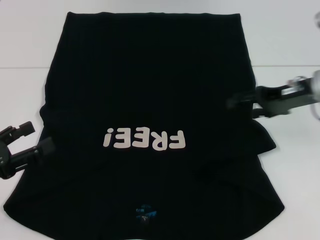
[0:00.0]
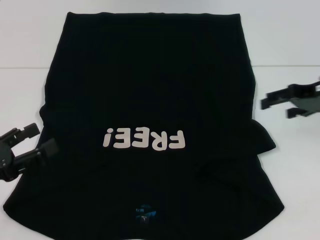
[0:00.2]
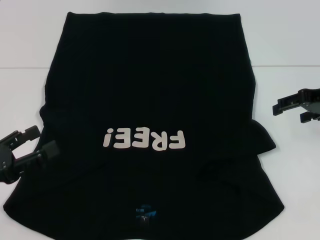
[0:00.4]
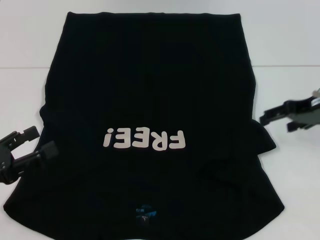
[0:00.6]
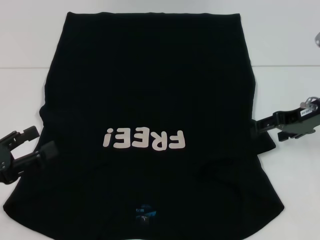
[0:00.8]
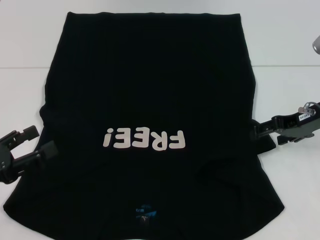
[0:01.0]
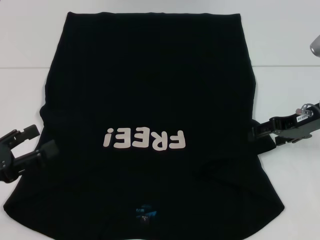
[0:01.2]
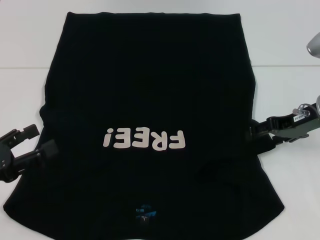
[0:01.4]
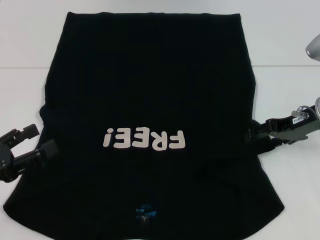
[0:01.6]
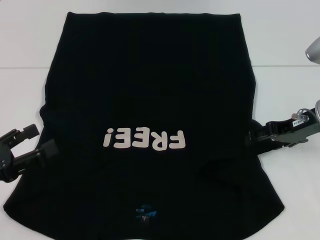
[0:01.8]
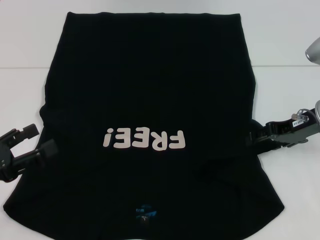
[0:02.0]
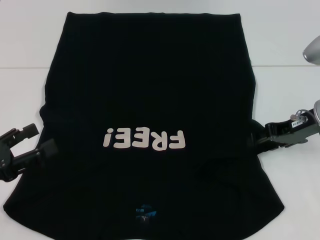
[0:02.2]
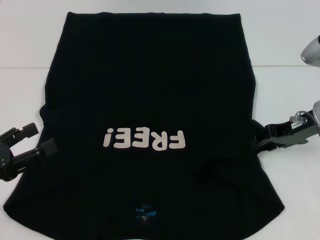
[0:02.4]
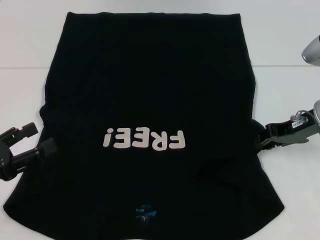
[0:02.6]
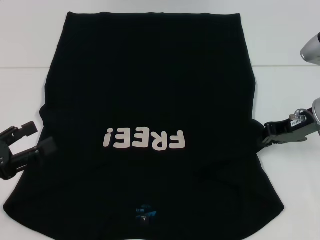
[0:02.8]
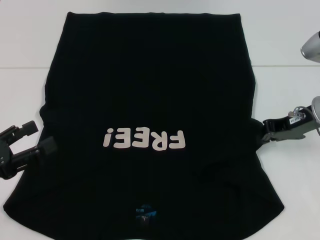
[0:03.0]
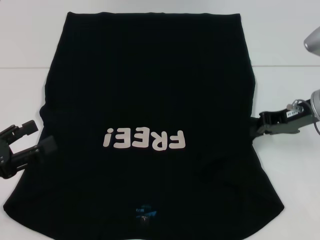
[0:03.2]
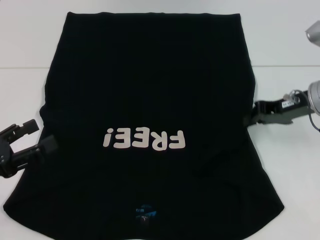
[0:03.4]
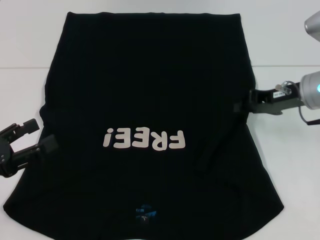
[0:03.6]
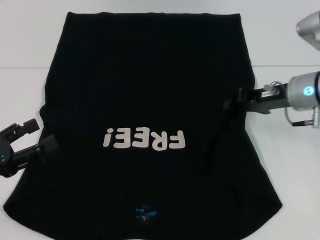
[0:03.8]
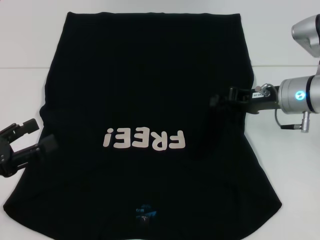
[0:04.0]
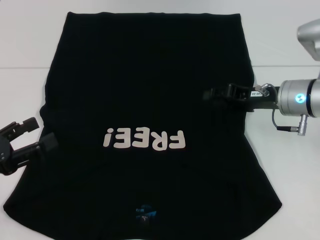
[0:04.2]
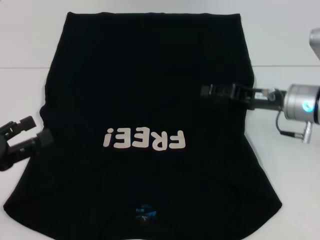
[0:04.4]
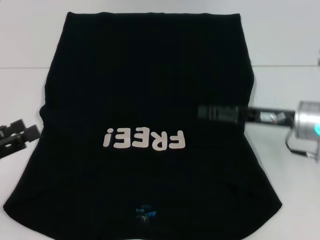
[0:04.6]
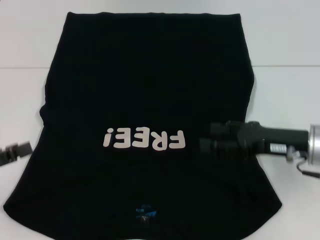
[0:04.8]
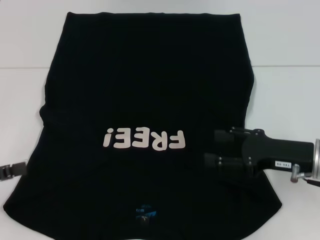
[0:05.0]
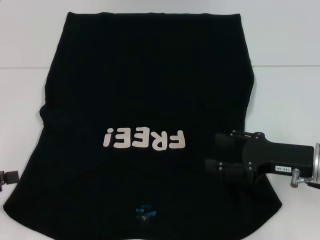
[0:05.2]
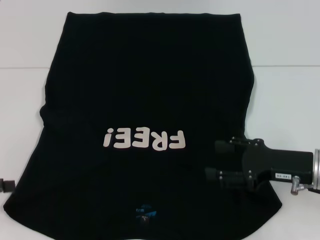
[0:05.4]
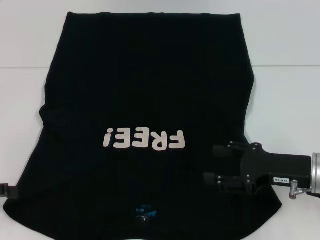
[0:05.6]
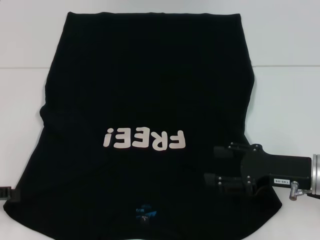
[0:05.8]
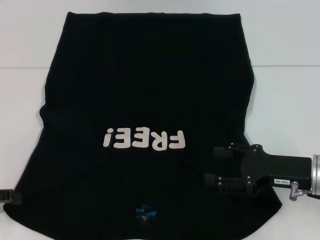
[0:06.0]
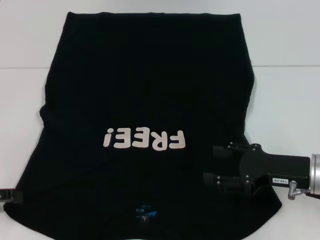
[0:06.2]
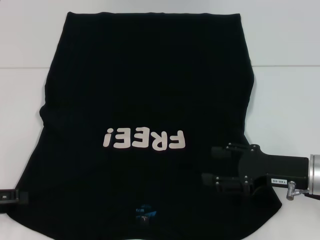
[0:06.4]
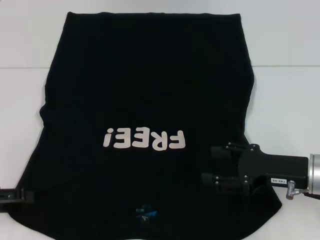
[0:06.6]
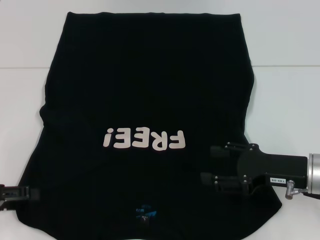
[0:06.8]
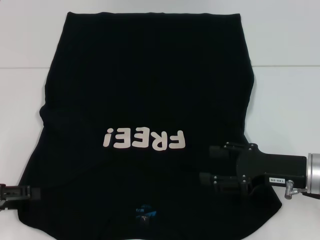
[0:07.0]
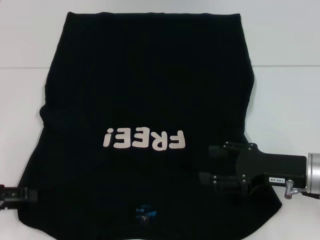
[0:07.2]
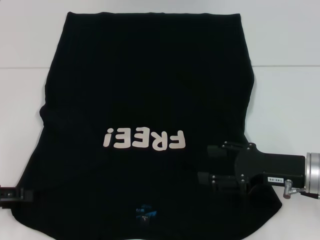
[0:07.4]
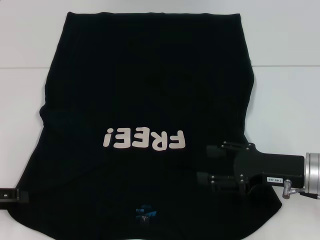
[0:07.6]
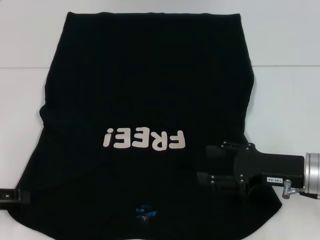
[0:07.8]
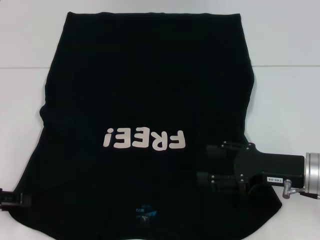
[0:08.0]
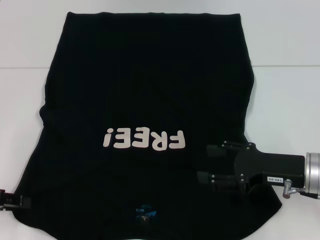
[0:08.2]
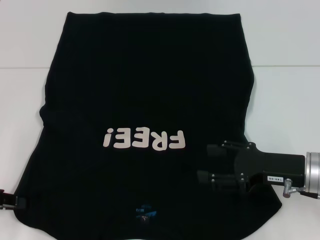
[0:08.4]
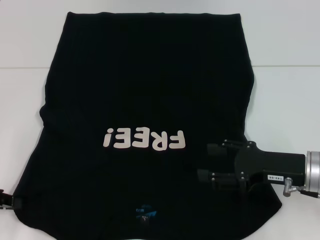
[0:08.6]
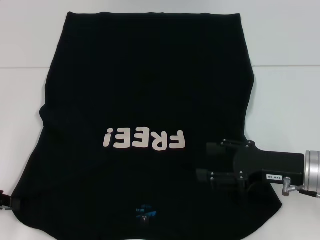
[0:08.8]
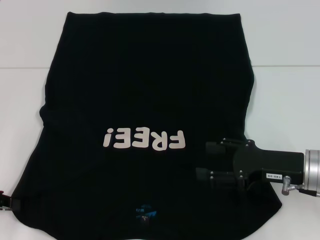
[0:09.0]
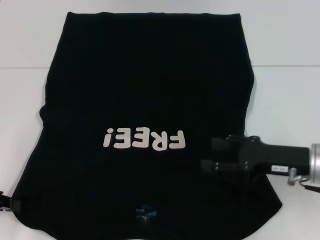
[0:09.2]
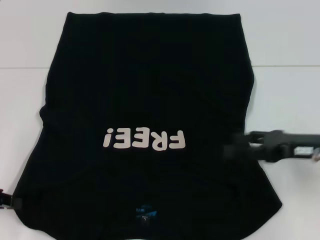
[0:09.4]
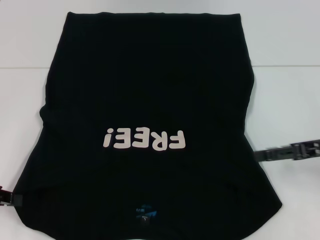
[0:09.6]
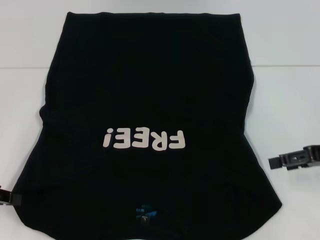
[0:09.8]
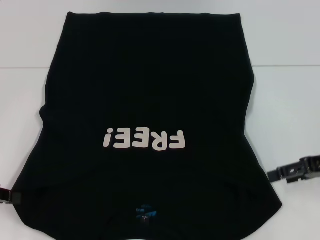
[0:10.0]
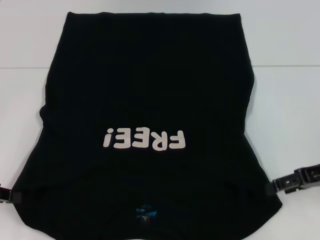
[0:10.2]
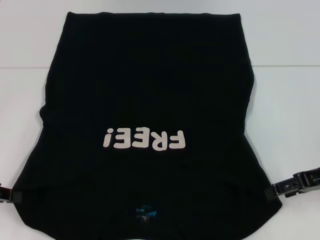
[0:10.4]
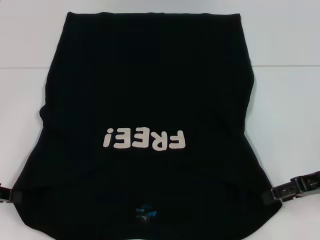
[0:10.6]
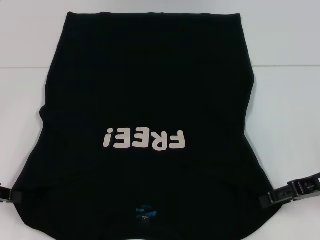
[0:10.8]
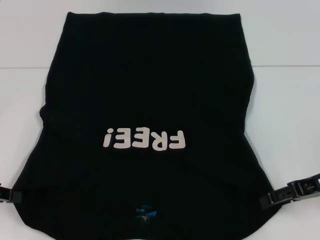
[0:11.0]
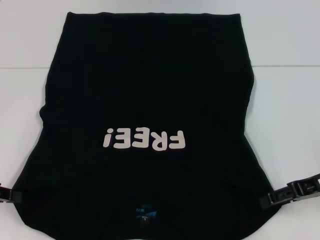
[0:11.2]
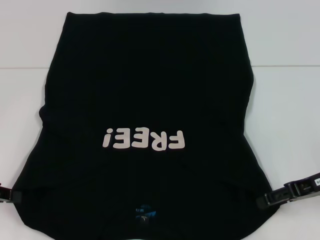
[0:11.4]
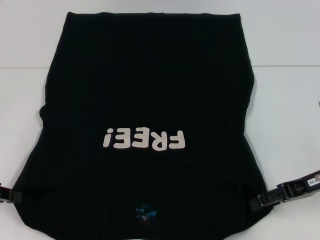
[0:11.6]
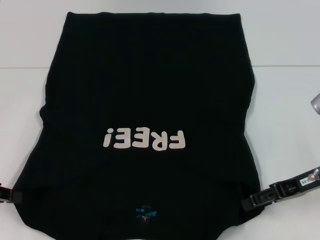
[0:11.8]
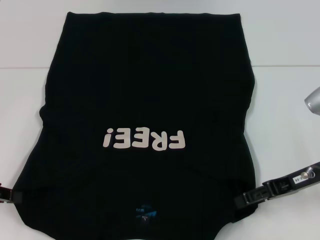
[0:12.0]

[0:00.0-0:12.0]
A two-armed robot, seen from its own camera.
Step, 0:00.0 to 0:04.6: Fold the bottom right sleeve with your right hand.
Step, 0:04.8 to 0:08.8: Grab the bottom left corner with your left hand.
0:00.0 to 0:01.6: The grippers make only small movements.
0:01.6 to 0:03.0: The right gripper closes.
0:04.4 to 0:06.0: The right gripper travels backward by approximately 10 cm, and opens, while the left gripper ends up some 5 cm from where it was.
0:06.0 to 0:07.6: The grippers move only a little.
0:09.0 to 0:10.4: The right gripper heads to the right, covering roughly 5 cm.
0:10.4 to 0:12.0: The grippers stay close to where they were, moving slightly.

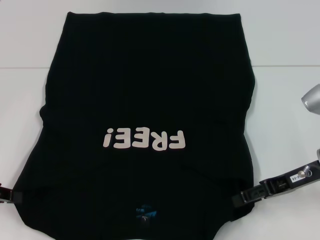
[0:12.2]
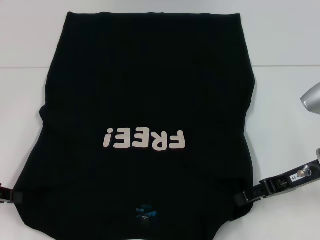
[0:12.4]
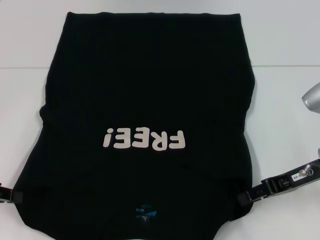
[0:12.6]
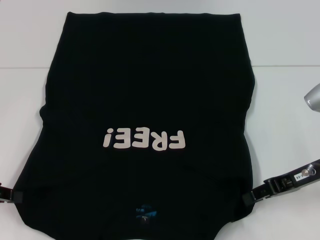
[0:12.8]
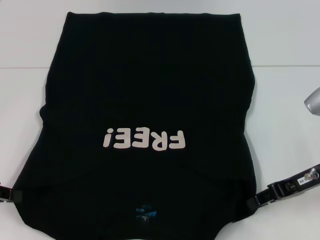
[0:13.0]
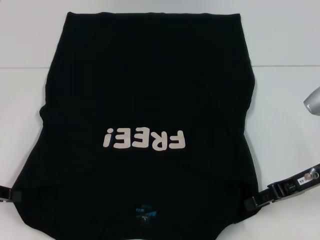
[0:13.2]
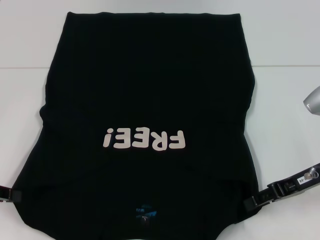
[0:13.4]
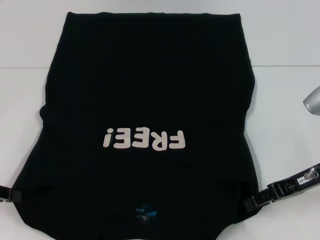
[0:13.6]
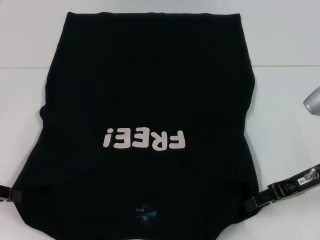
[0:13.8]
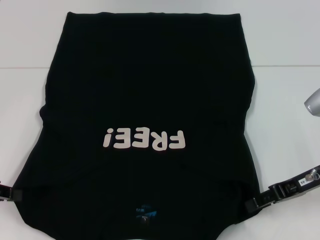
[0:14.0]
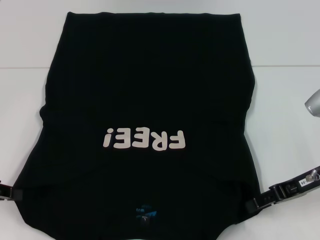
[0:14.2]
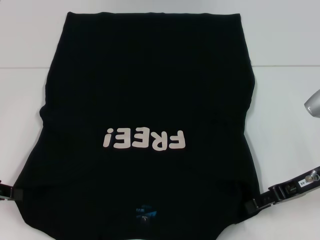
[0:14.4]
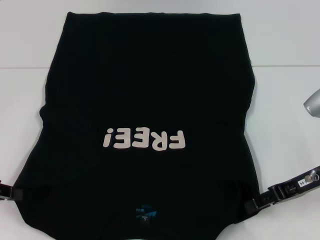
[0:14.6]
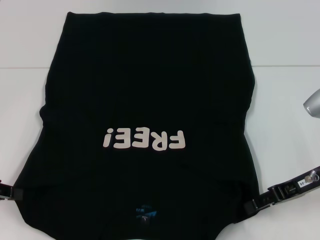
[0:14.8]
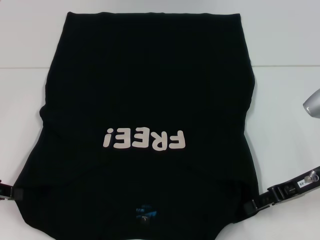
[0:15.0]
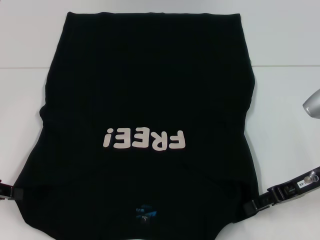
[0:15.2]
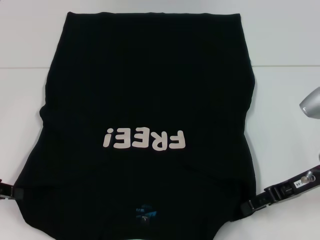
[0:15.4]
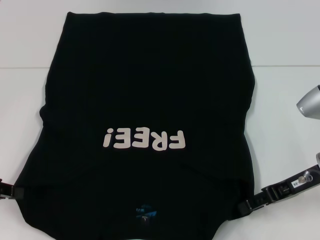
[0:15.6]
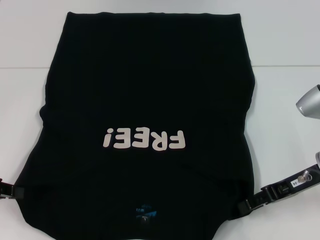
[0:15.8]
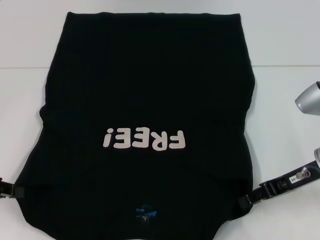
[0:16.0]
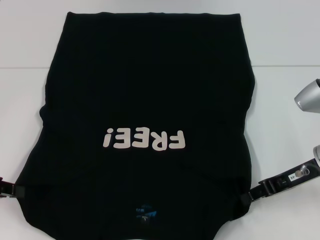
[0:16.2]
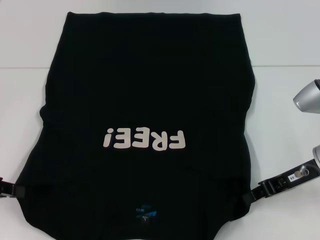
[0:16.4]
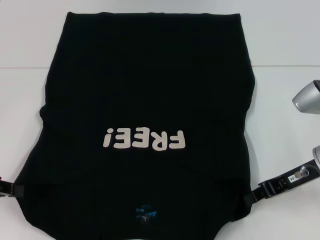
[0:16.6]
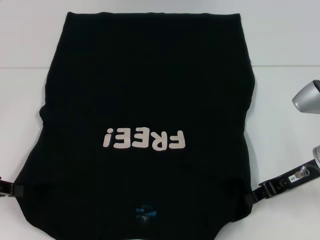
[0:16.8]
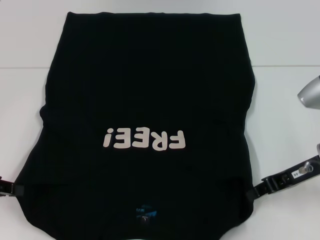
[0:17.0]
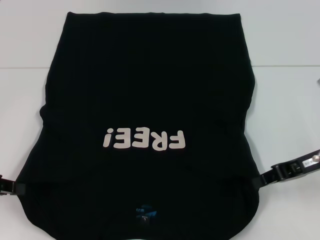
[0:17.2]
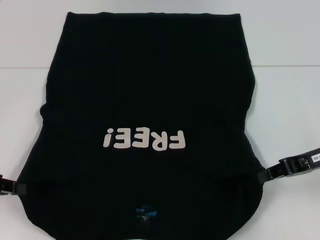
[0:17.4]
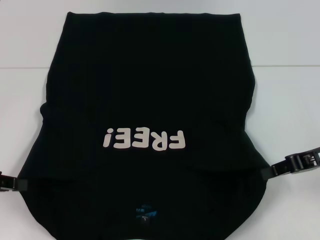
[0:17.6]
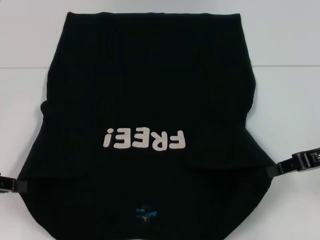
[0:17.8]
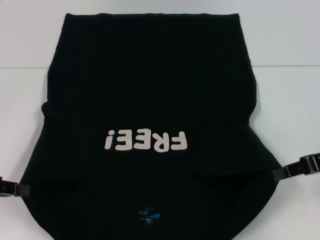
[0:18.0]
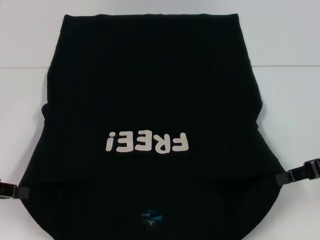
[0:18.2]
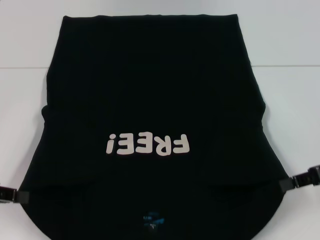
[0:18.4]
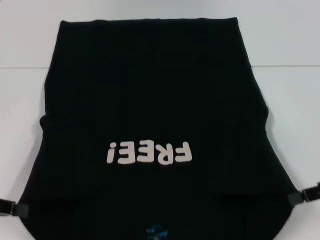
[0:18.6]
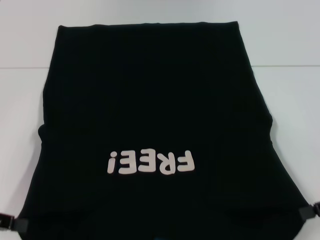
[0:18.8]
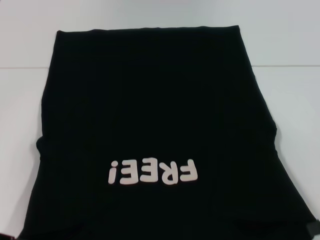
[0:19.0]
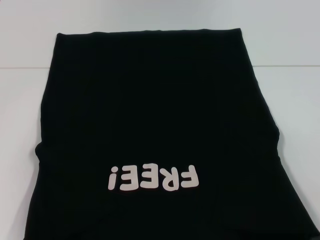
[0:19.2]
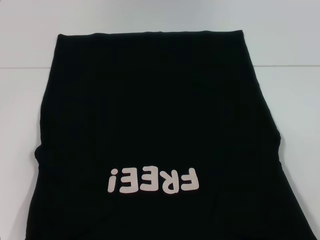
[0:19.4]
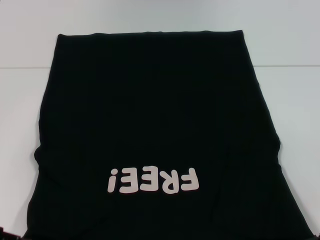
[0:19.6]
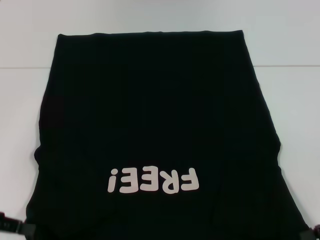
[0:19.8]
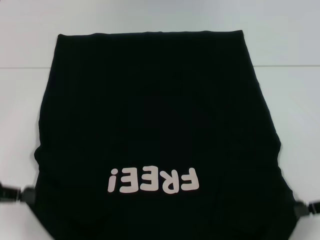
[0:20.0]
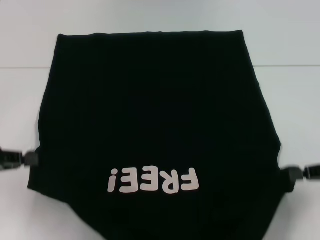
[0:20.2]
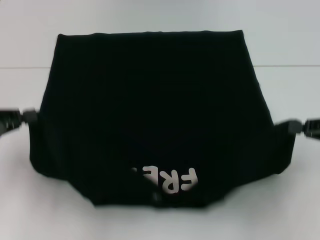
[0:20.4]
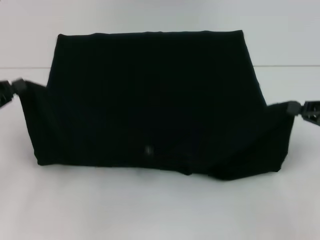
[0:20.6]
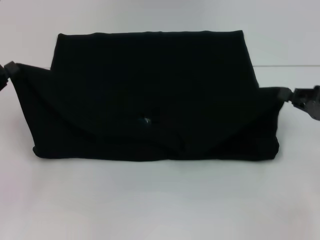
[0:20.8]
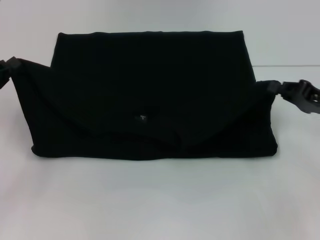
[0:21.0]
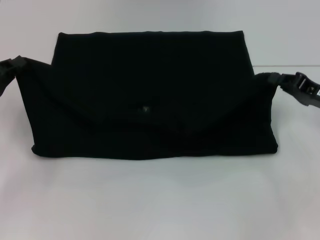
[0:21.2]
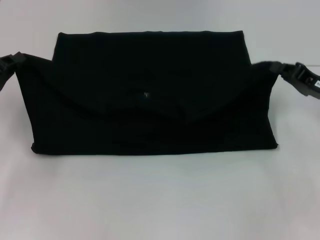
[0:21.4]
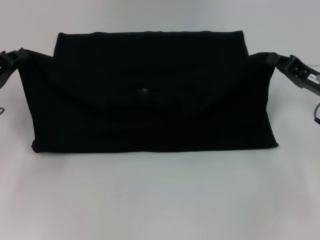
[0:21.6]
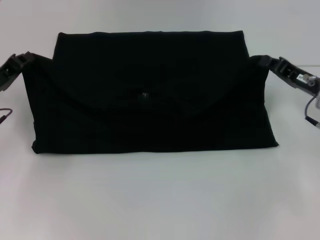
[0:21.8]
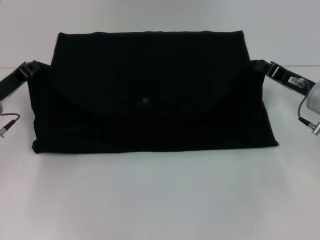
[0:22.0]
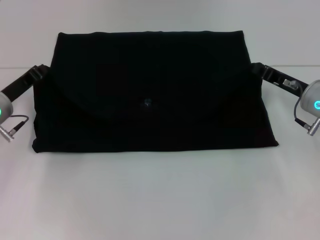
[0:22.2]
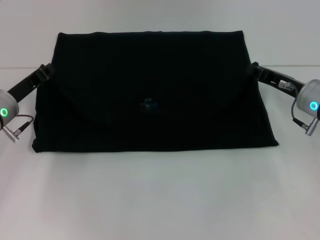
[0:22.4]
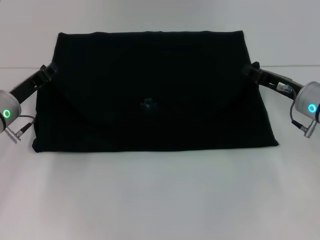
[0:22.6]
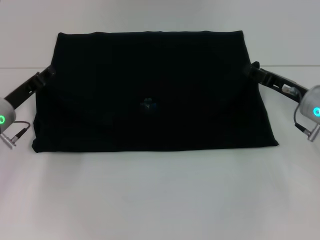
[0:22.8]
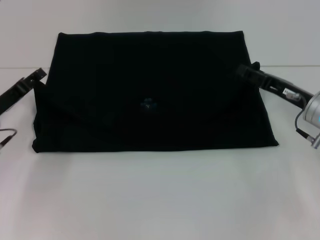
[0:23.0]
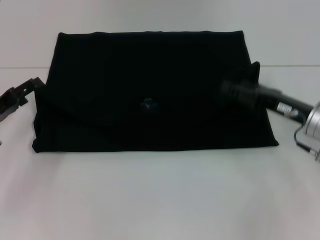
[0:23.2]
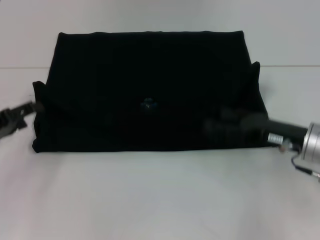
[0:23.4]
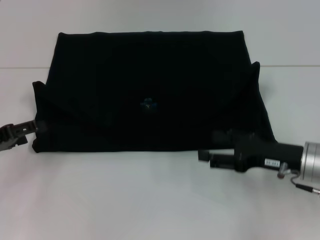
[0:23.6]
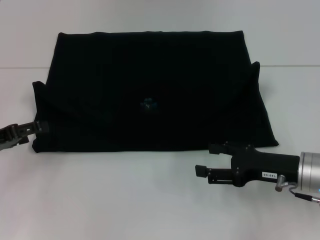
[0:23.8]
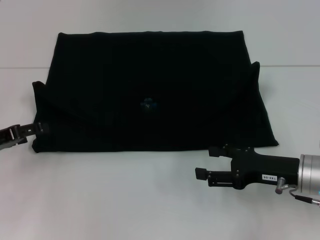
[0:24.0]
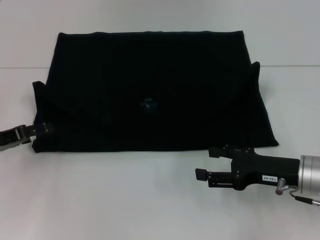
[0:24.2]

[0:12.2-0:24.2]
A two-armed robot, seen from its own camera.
Step, 0:12.2 to 0:17.2: Grab the bottom right corner with your right hand.
Step, 0:17.4 to 0:23.0: Fold the clothes with your left hand.
Step, 0:17.4 to 0:23.0: Fold the clothes with your right hand.
0:12.2 to 0:15.2: Both grippers stay about where they are.
0:15.2 to 0:16.6: The right gripper closes.
0:16.6 to 0:18.2: The right gripper heads to the right, covering roughly 5 cm.
0:18.2 to 0:19.8: The right gripper goes approximately 5 cm backward.
0:19.8 to 0:21.2: Both grippers move forward, approximately 10 cm.
0:21.2 to 0:22.6: The left gripper goes some 5 cm to the right. The right gripper is displaced to the left by about 5 cm.
0:22.6 to 0:24.2: The left gripper moves to the left and backward, some 10 cm, and opens up. The right gripper moves backward, roughly 10 cm, and opens its fingers.
